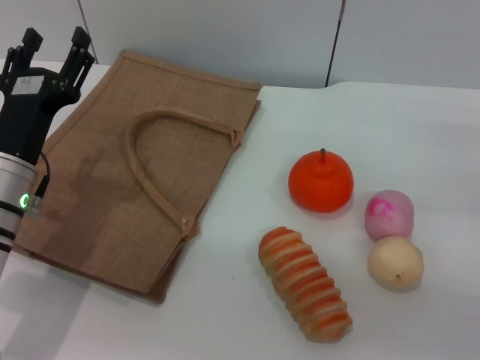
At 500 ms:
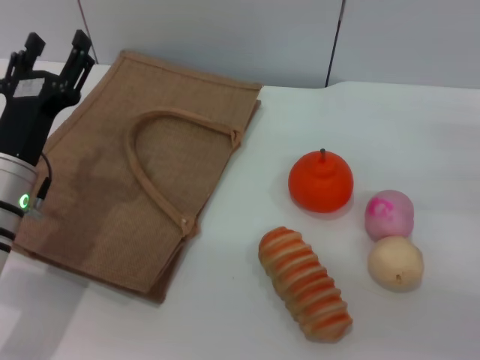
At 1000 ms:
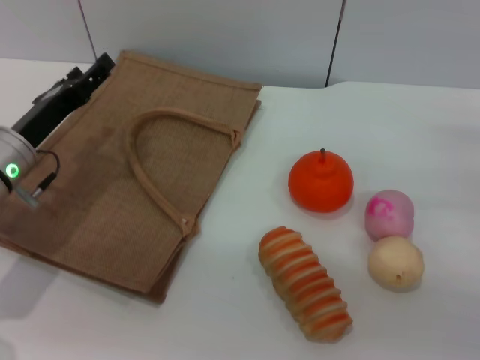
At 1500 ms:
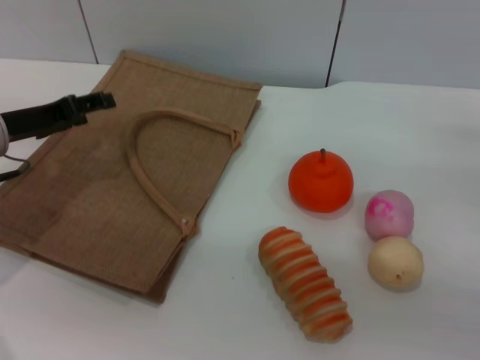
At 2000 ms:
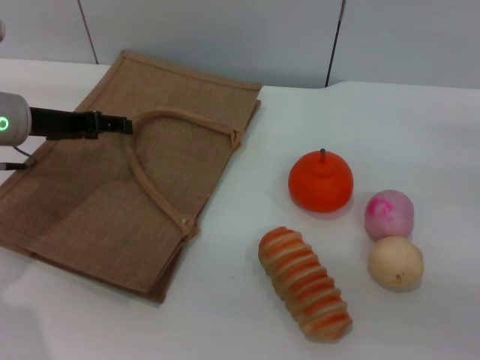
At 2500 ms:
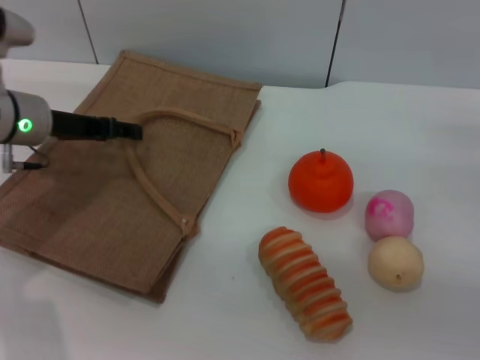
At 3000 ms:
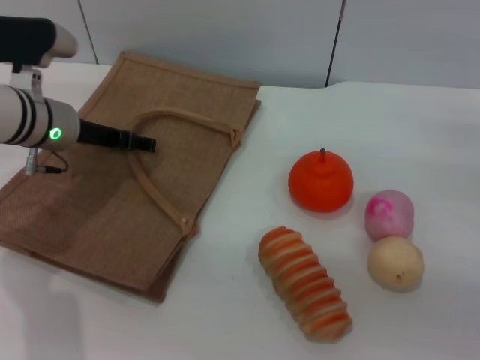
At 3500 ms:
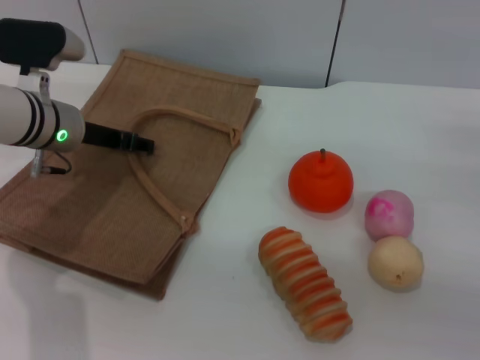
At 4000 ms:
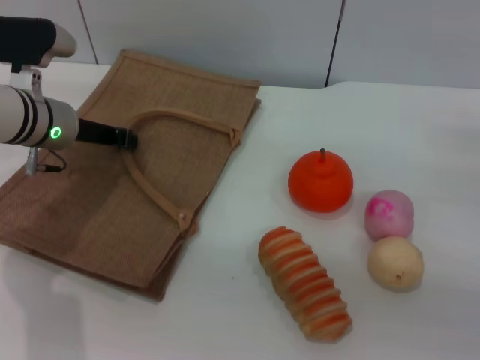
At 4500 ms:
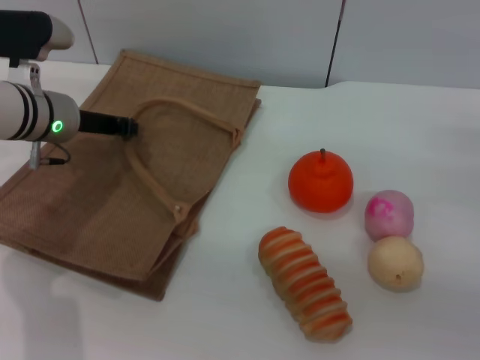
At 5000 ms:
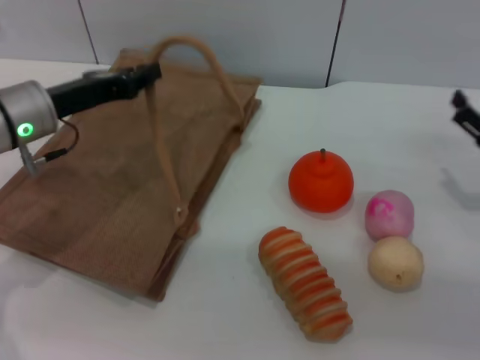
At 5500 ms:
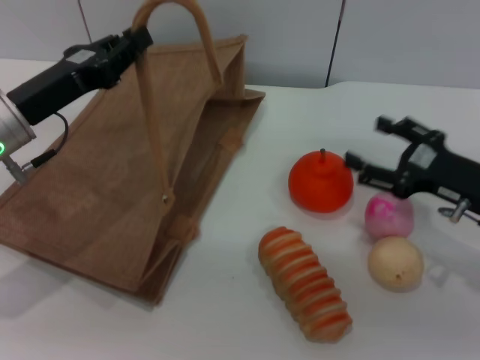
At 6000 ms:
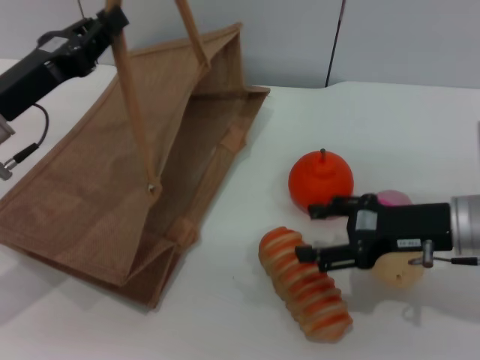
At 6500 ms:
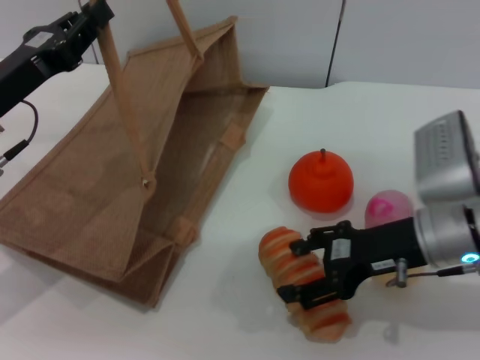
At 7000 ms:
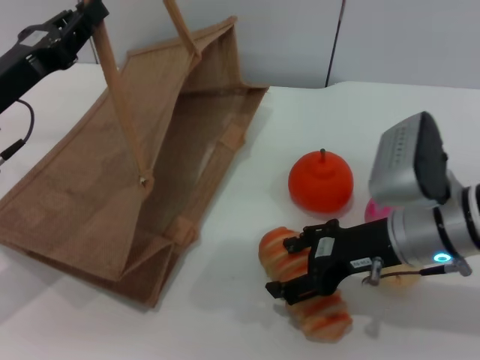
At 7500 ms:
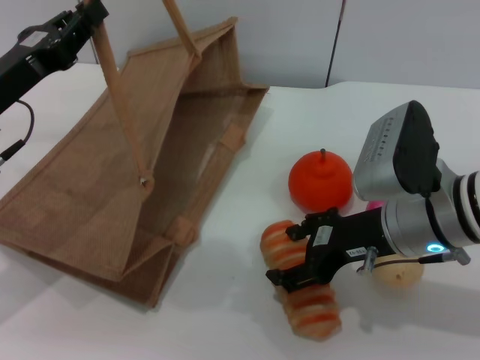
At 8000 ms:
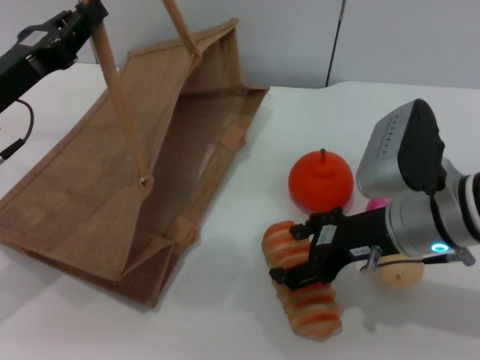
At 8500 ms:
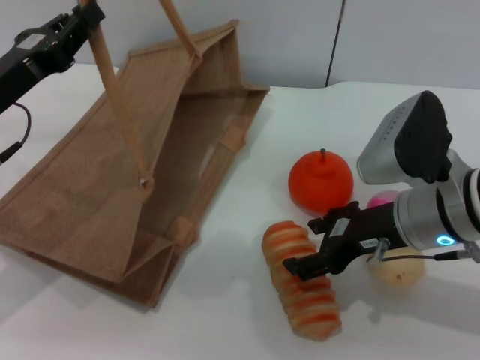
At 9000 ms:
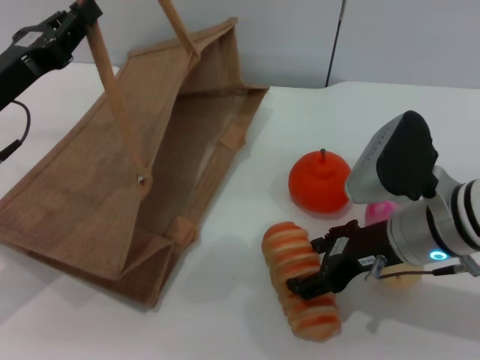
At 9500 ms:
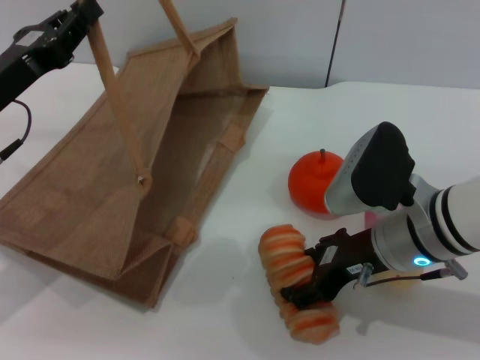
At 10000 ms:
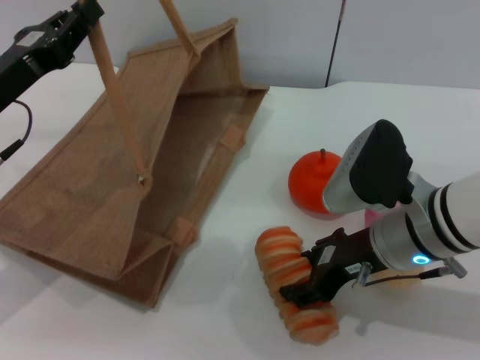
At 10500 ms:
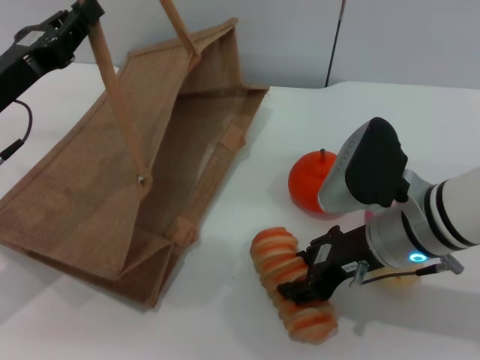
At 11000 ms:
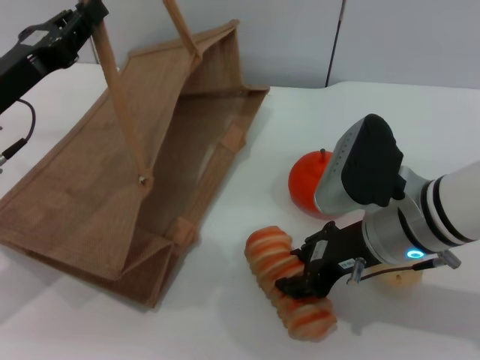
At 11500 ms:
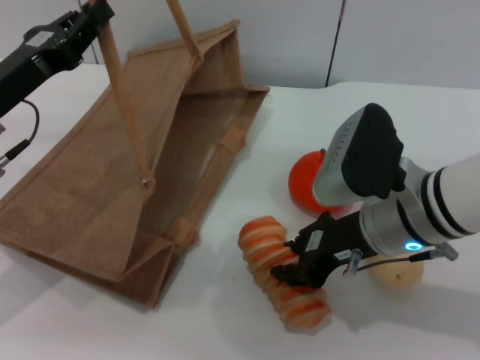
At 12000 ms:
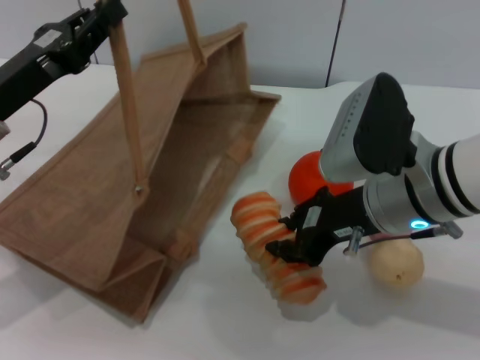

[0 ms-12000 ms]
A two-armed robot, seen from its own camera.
Task of the whole recording: pick up the bread and egg yolk pastry from the table and place it in the brown handbag.
Step, 0 ms to 4500 ms: Lift the woven bag with the left gripper to open it.
Step, 5000 ms to 12000 ms: Pick up the bread with the right gripper.
0 ms to 2000 ms: The left gripper goes approximately 10 cm forward and upward.
2000 ms to 4000 ms: The left gripper ends up roughly 5 cm from where it was, and closes.
4000 ms to 6000 ms: The right gripper is displaced to the left by approximately 10 cm, while the left gripper moves backward, roughly 10 cm, and closes.
6000 ms to 8000 ms: The right gripper shifts roughly 5 cm to the left.
8000 ms to 10000 ms: The grippers stay close to where they were, moving slightly.
10000 ms to 12000 ms: The right gripper closes its fingers.

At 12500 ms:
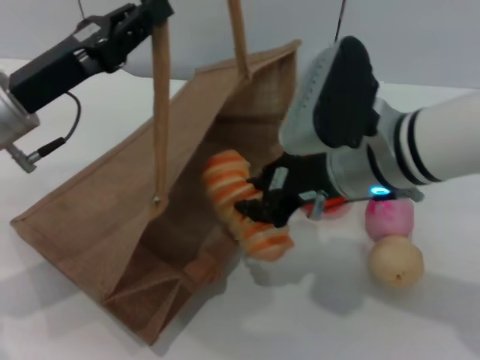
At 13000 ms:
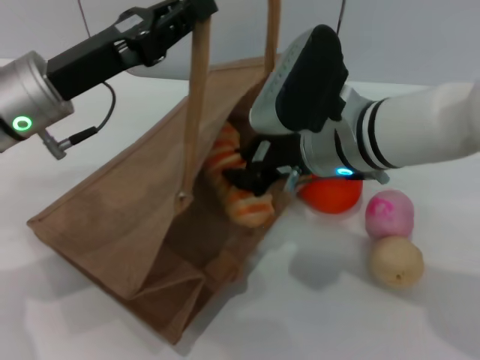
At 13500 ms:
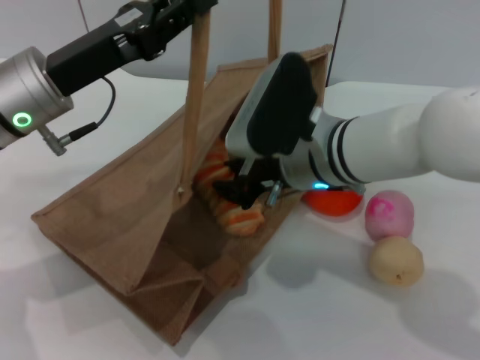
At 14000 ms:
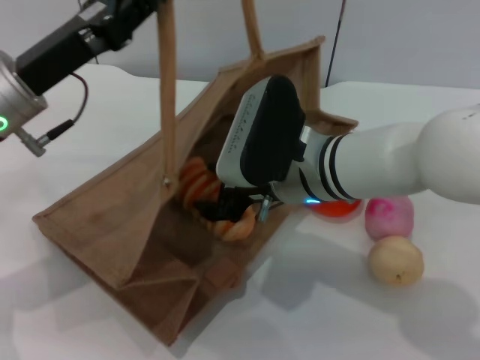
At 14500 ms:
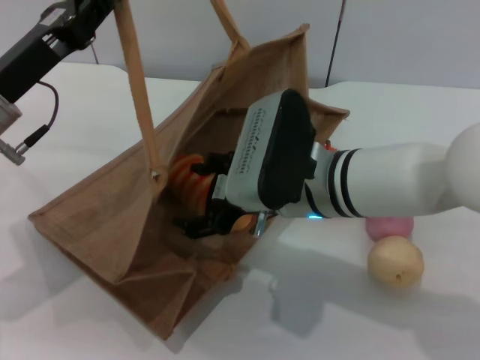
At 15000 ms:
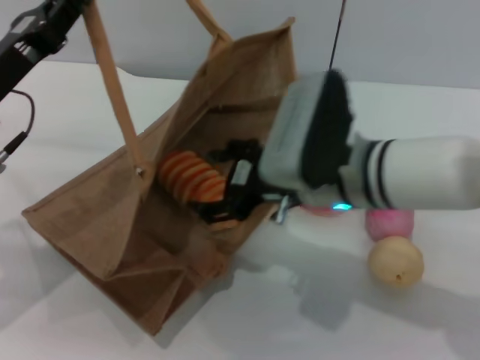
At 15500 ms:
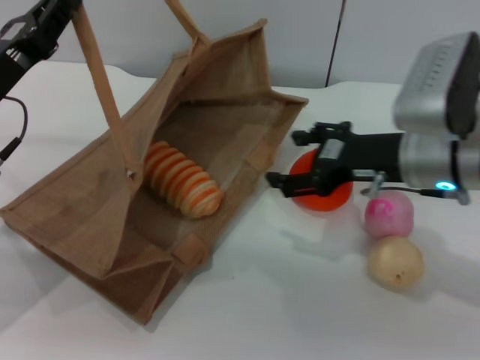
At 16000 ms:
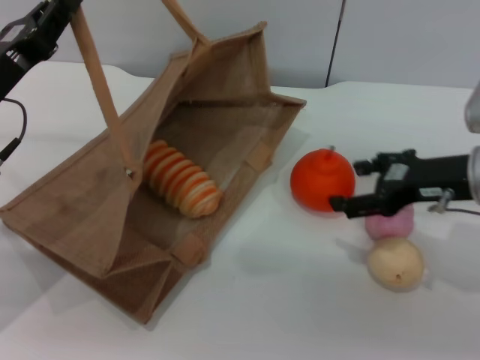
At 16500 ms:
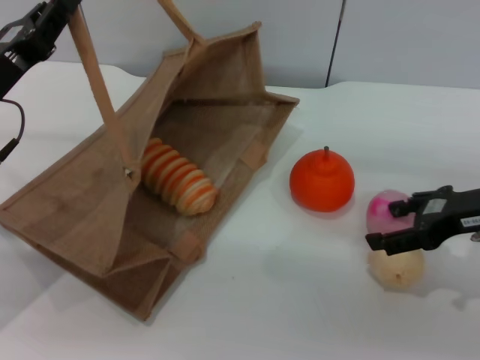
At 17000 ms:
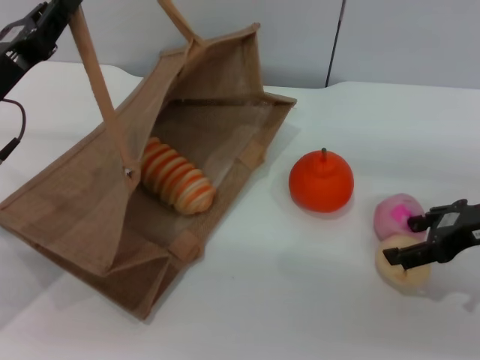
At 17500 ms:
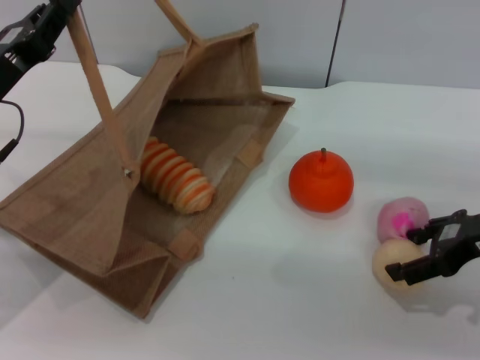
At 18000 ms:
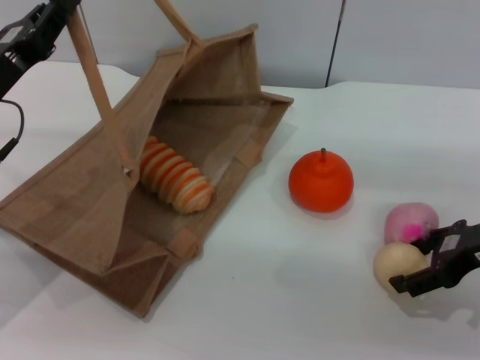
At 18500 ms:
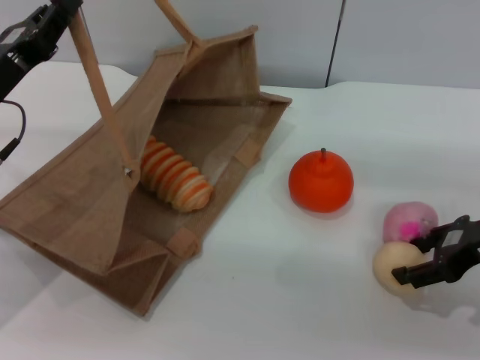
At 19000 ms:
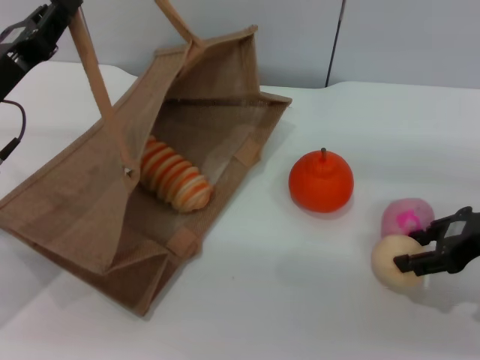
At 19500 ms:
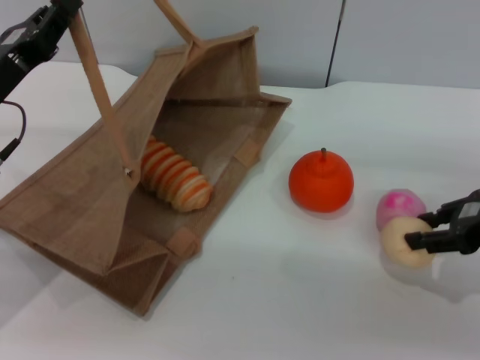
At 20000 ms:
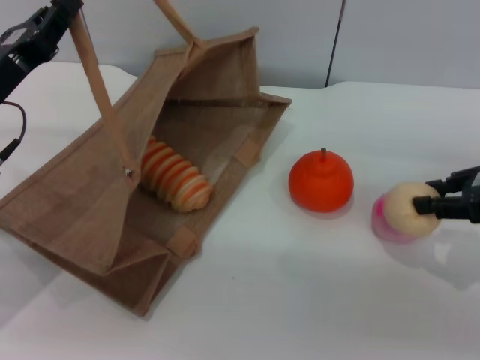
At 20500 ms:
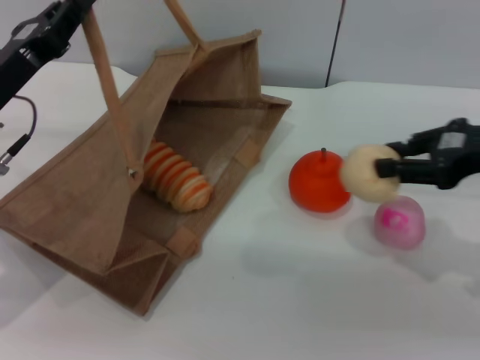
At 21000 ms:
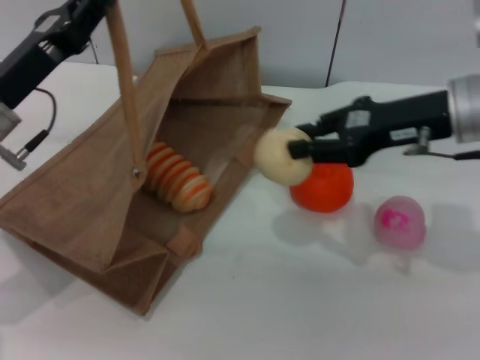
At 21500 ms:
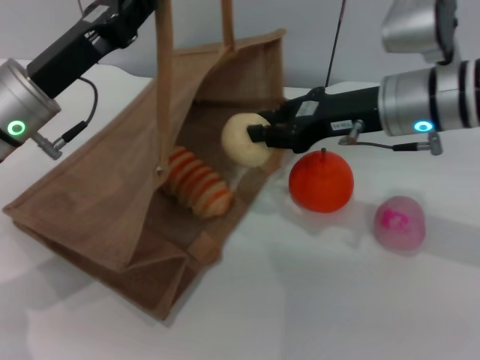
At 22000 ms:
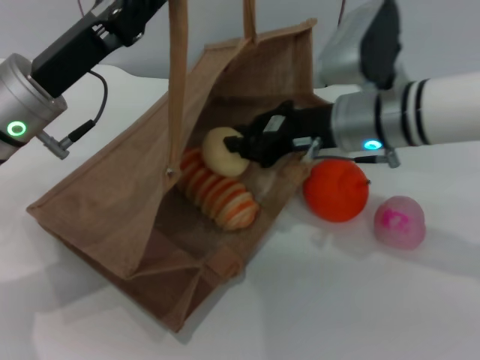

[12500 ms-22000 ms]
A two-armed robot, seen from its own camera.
Task of the whole recording: pick up the bread and egg yolk pastry from the table and place it in the brown handbag.
Step, 12500 ms to 15000 ms: Place the bread into the woven bag with the right gripper.
Step, 15500 ms to 20000 ms: Pick up the egg yolk pastry with the right gripper.
12500 ms to 14500 ms: The right gripper moves about 5 cm, and opens its fingers.
14500 ms to 16500 ms: The right gripper goes approximately 20 cm to the right.
16500 ms to 18000 ms: The grippers stay close to where they were, moving slightly.
18000 ms to 20000 ms: The right gripper changes place by approximately 5 cm, and closes its fingers.
20000 ms to 22000 ms: The left gripper moves to the right, some 5 cm, while the right gripper travels to the left by roughly 20 cm.

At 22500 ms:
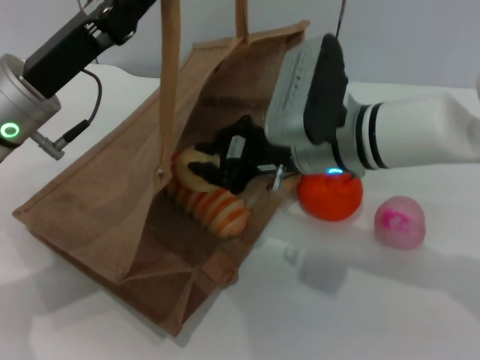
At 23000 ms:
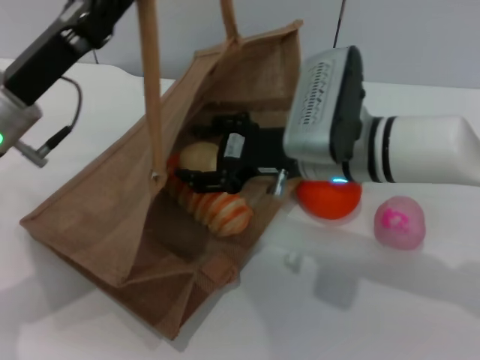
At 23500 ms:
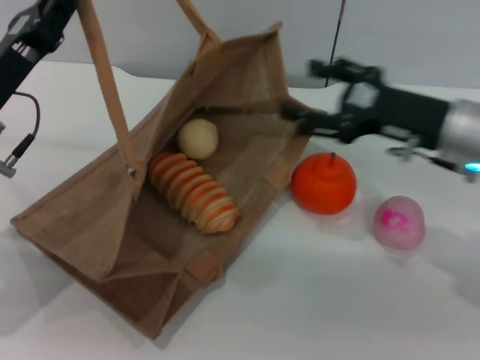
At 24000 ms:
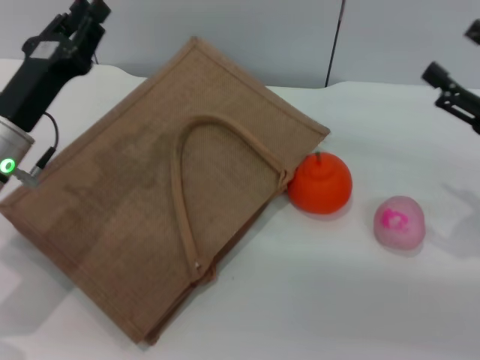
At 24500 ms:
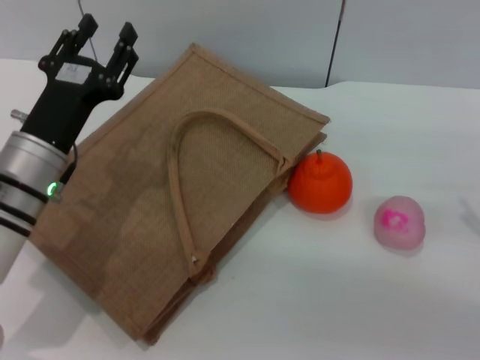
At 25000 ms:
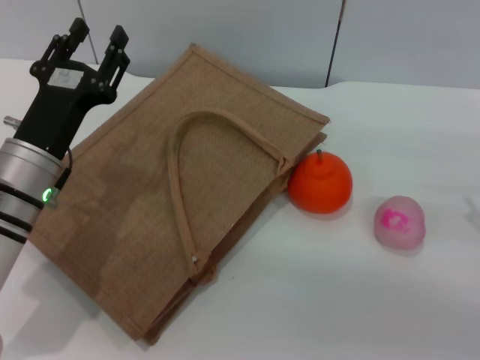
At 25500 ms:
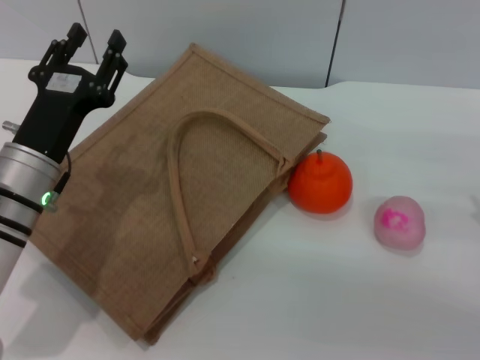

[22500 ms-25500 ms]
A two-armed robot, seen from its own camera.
Task of the whole recording: pick up the bread and egg yolk pastry from the table and place it in the brown handbag.
22500 ms to 24000 ms: The left gripper shifts about 5 cm downward. The right gripper heads to the right, covering about 25 cm, and opens its fingers.
24000 ms to 25500 ms: The right gripper shifts by approximately 5 cm. The left gripper opens.
